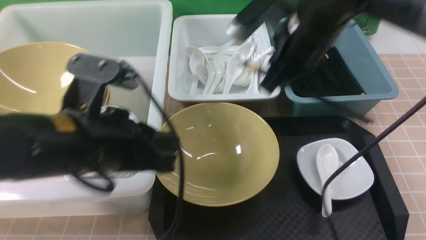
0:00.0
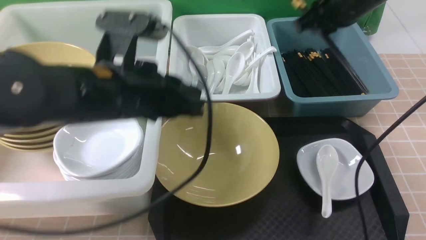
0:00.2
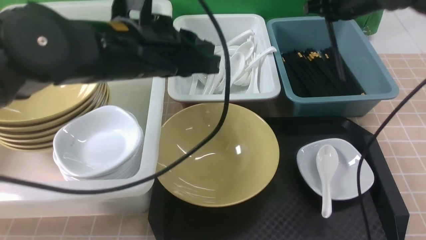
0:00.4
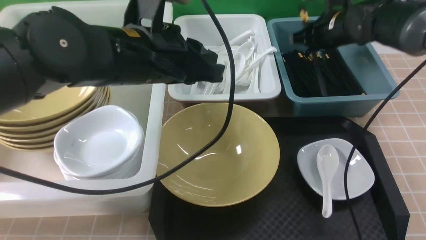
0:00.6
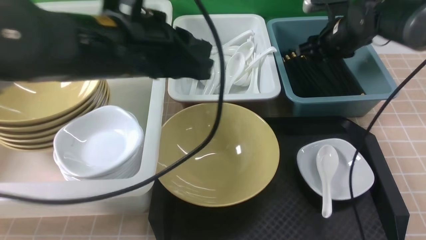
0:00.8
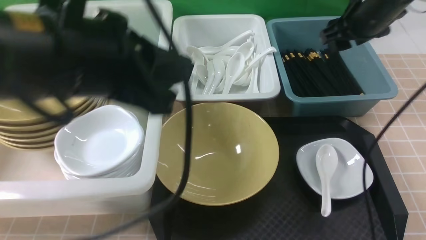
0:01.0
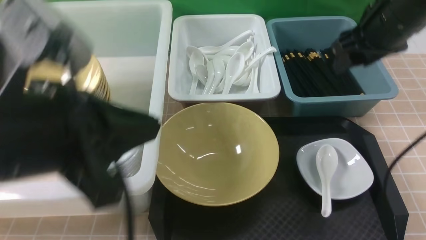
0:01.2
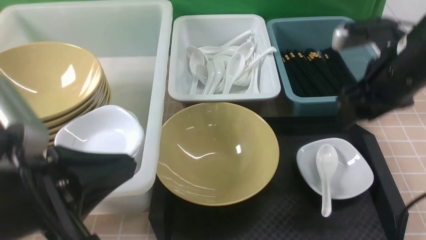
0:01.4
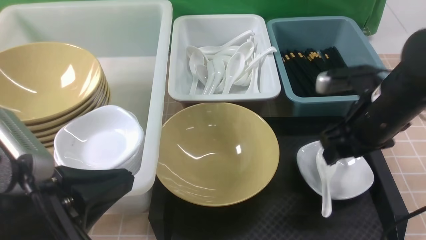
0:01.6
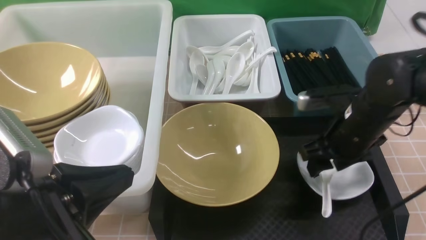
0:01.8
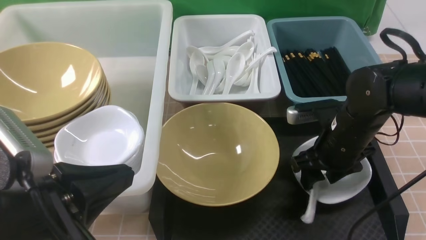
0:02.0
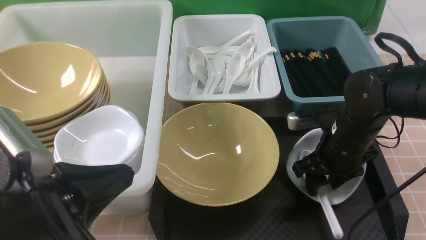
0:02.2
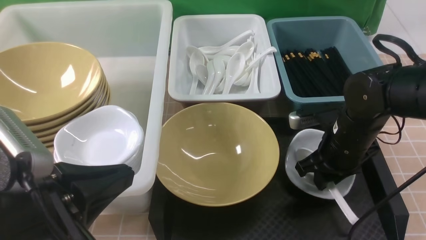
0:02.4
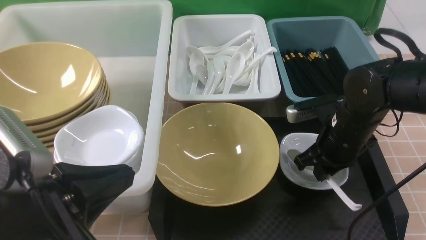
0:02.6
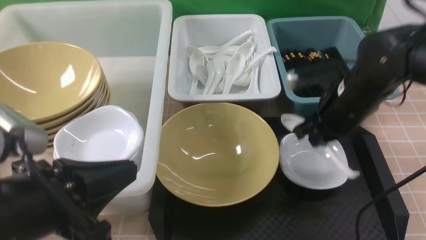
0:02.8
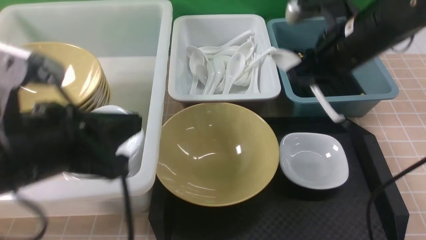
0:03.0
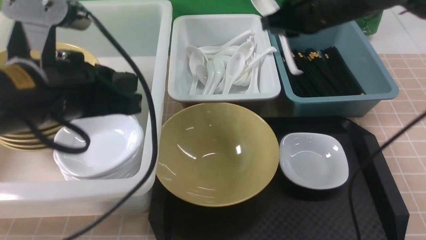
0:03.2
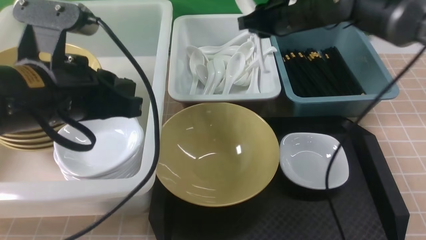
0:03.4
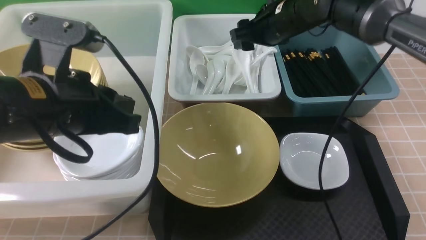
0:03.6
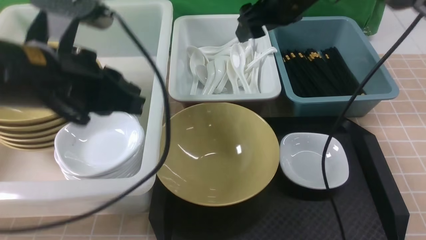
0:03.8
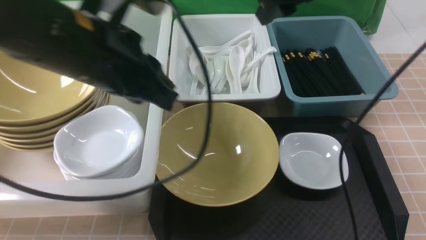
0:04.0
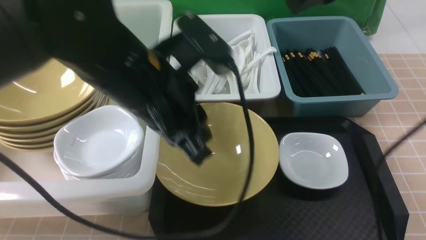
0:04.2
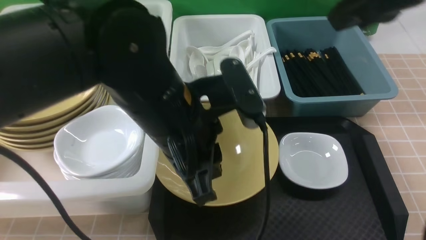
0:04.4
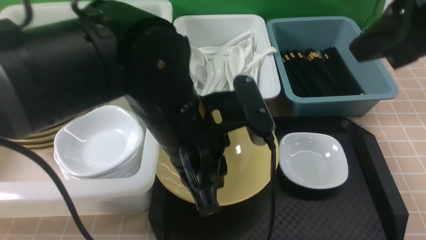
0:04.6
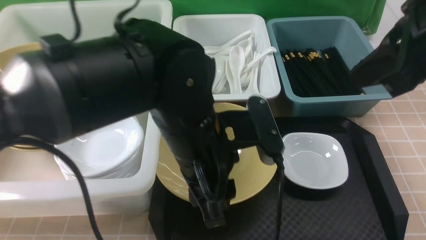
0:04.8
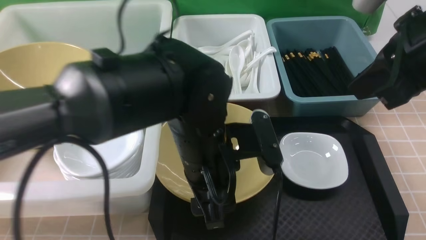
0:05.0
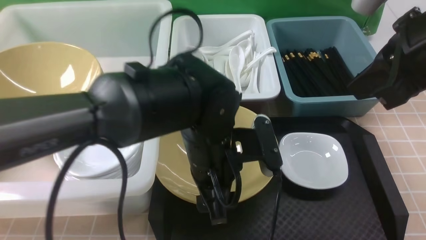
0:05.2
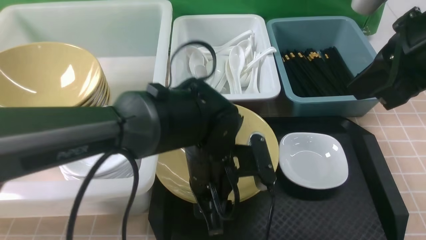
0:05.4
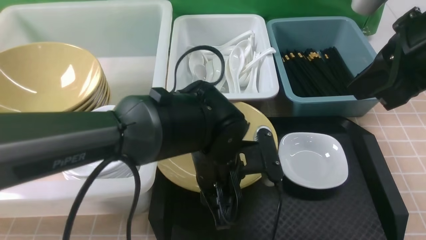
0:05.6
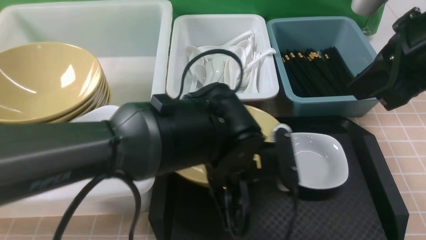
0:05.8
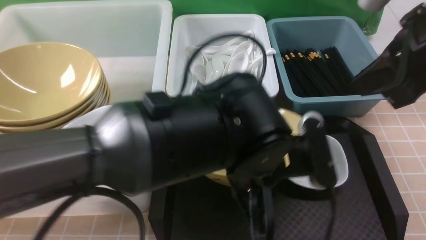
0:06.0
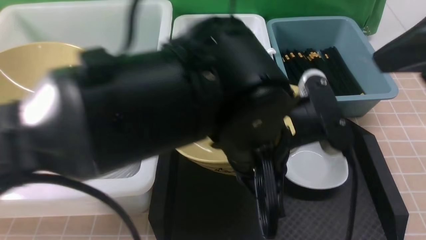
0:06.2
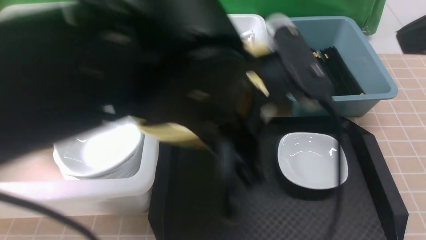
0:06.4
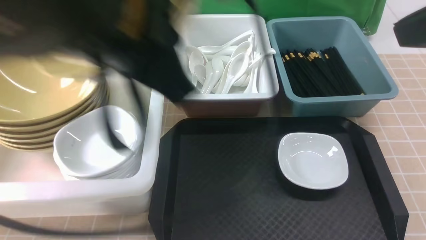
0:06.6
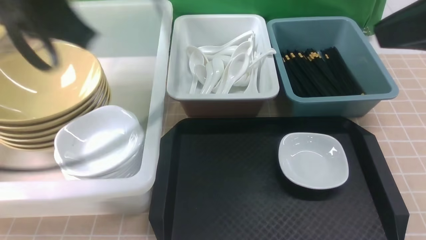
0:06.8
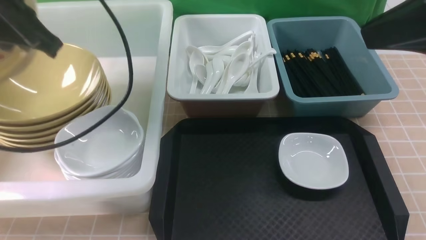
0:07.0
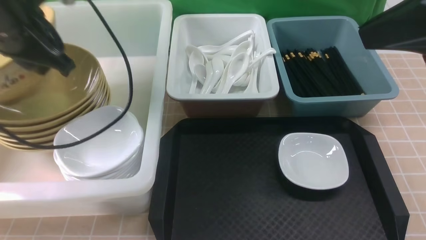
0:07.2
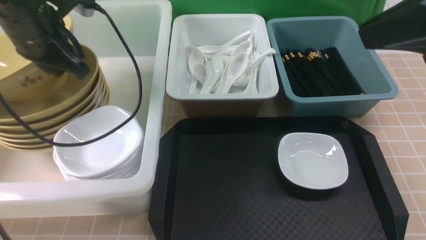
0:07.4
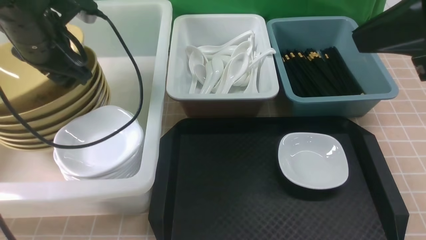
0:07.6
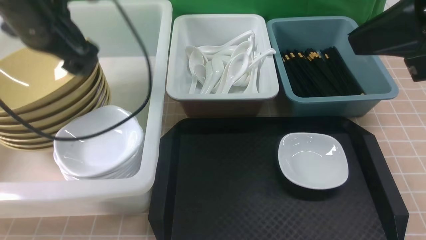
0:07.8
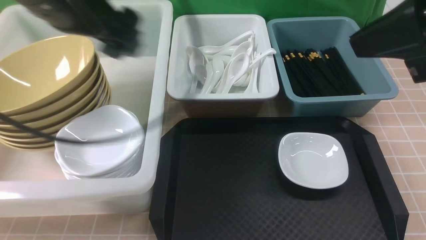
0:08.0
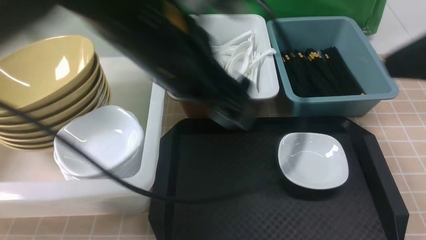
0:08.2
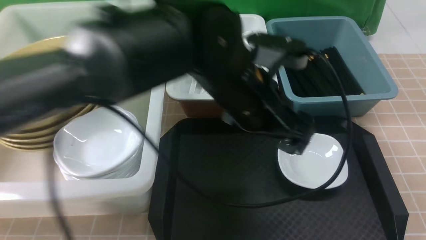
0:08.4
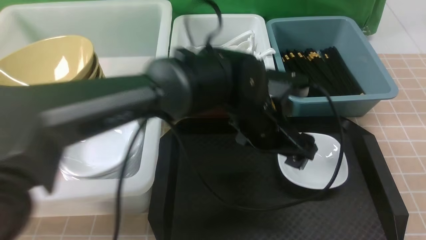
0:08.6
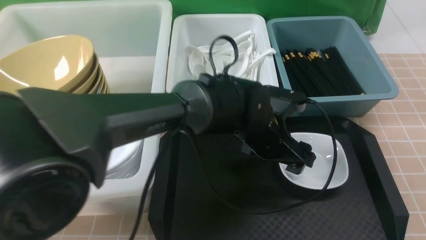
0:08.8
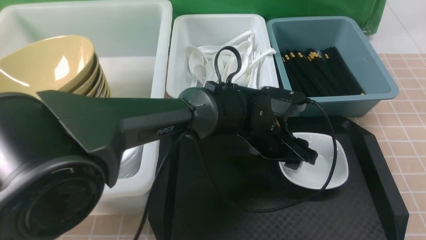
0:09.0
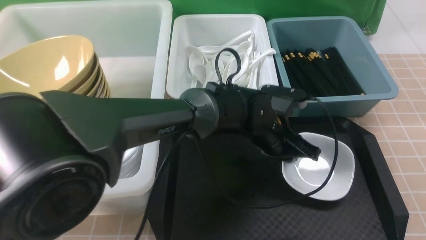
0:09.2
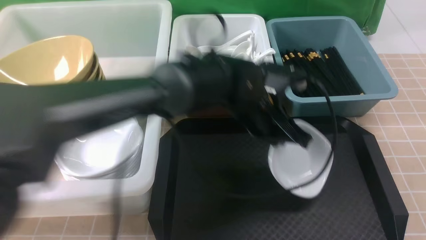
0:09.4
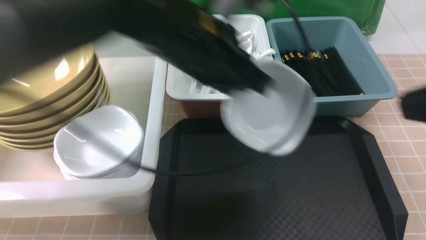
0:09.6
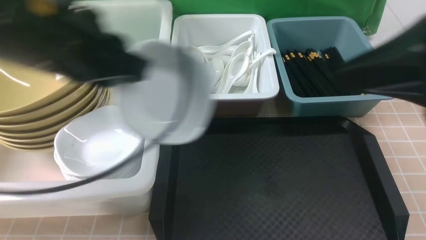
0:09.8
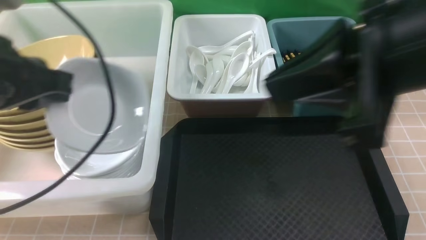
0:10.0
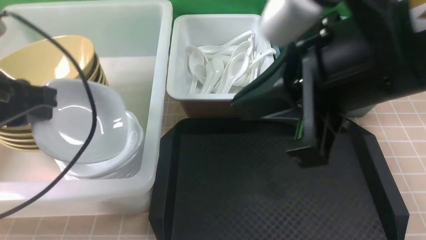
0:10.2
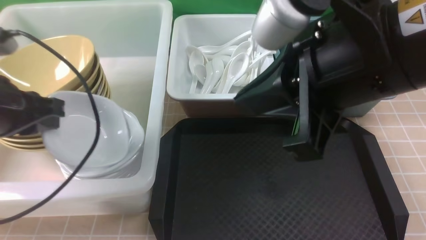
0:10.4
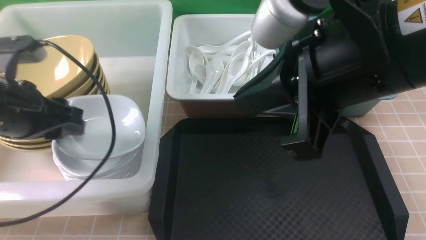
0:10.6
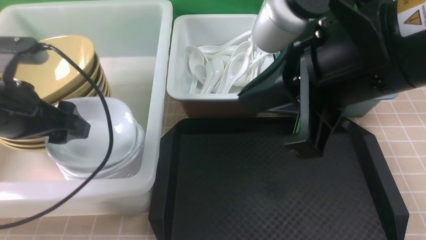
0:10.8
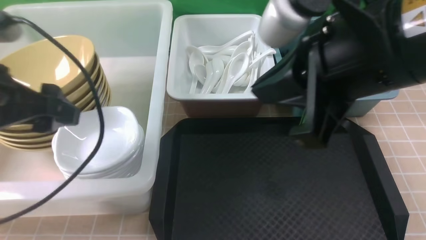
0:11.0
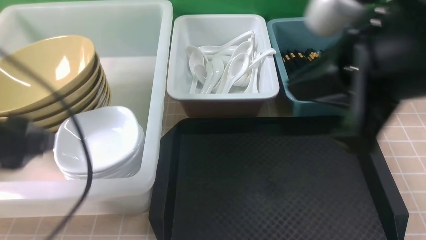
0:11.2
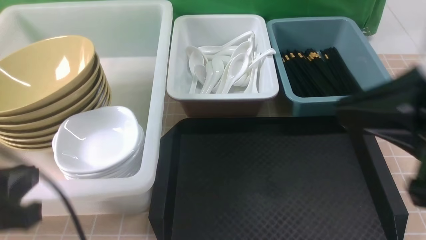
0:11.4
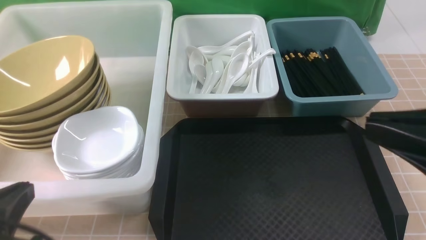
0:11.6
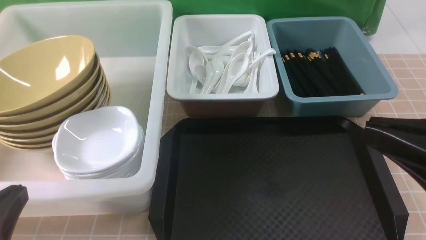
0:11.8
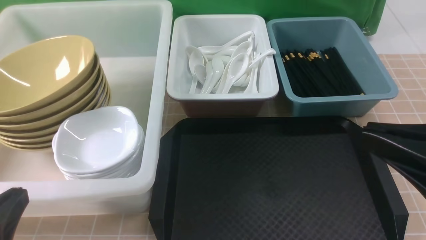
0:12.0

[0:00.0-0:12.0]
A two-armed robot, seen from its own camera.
Task of the whole recording: on brown table put chopsticks spoon bowls plates into blue grey white boxes.
Step, 0:00.0 to 0:01.0: use the right arm to put the chopsticks into the small storage box on the right.
Step, 0:01.2 to 0:02.6: use the right arm to grab the soup spoon in the middle.
Step, 0:03.0 to 0:04.0: use the right arm to put the soup spoon into the small storage box in the middle.
Step, 0:04.2 to 0:06.0: use the left arm to grab the yellow noodle bowl on the left.
Step, 0:06.2 to 0:08.0: use the left arm to put the noodle bowl into the large storage box on the left.
Step, 0:08.4 to 0:09.4: use the left arm to grab the plate.
Step, 0:09.6 to 0:11.2: use the left arm to put the plate into the large storage box on the left.
0:00.0 to 0:01.6: The left gripper moves backward and to the left, approximately 10 cm. The right gripper travels to the right, downward and backward by some 15 cm, and opens its fingers.
0:01.6 to 0:03.0: The right gripper travels upward and forward by about 10 cm, and closes; the left gripper heads forward, covering approximately 5 cm.
0:03.0 to 0:04.4: The right gripper heads upward and backward, covering some 15 cm, and opens, then closes again, while the left gripper travels to the right and forward by approximately 15 cm.
0:04.4 to 0:06.0: The left gripper is displaced to the right by about 10 cm, goes downward and returns, about 10 cm each way, and opens, then closes once more. The right gripper shifts some 5 cm backward.
0:06.0 to 0:07.6: The left gripper moves to the left and forward, approximately 30 cm, and opens up.
0:07.6 to 0:09.0: The left gripper heads to the right and downward, covering about 35 cm, and opens, then closes once more. The right gripper is displaced backward, to the right and downward by approximately 10 cm.
0:09.0 to 0:10.4: The left gripper is displaced to the left and upward by approximately 35 cm. The right gripper shifts some 20 cm to the left and forward.
0:10.4 to 0:12.0: The right gripper moves to the right, backward and downward, some 15 cm; the left gripper goes approximately 20 cm backward, and opens, then closes once more.

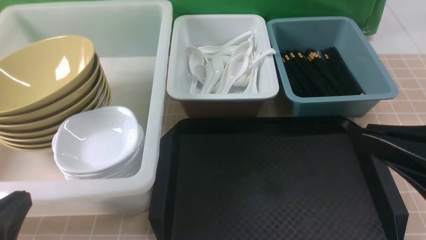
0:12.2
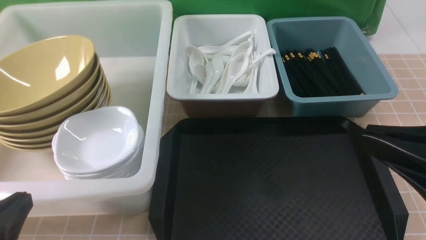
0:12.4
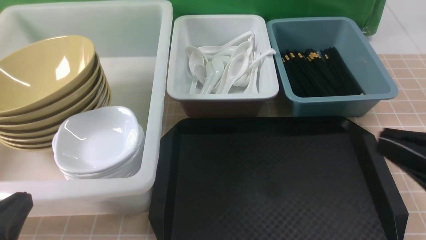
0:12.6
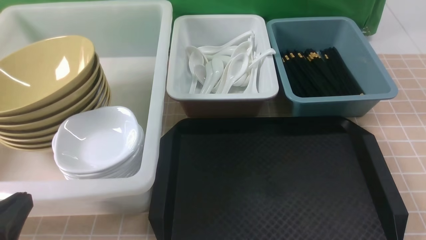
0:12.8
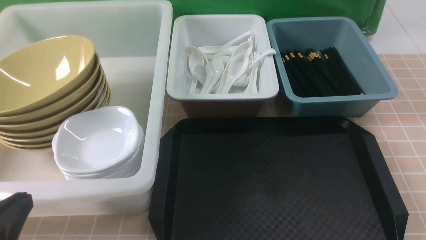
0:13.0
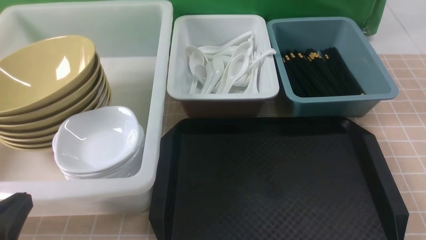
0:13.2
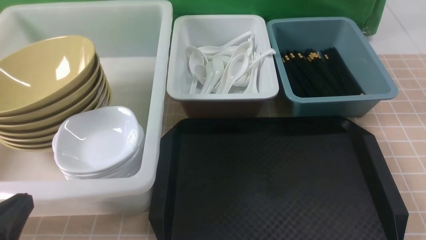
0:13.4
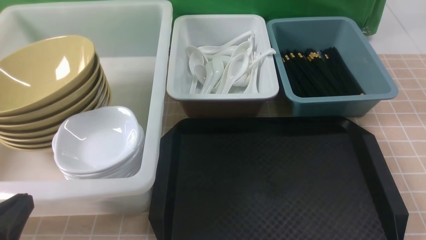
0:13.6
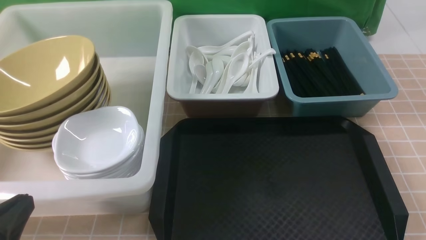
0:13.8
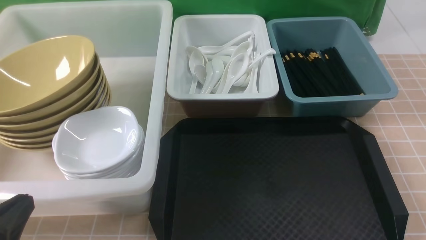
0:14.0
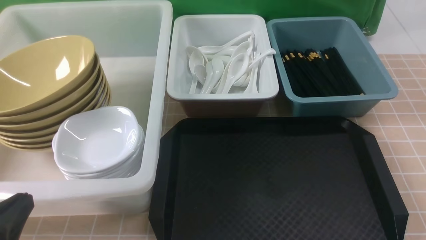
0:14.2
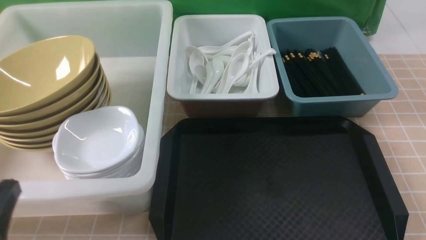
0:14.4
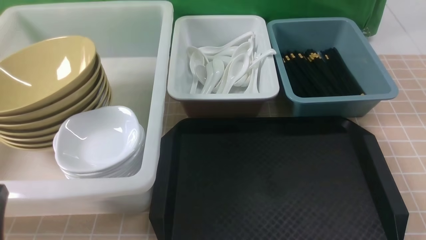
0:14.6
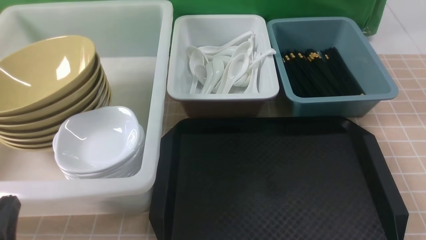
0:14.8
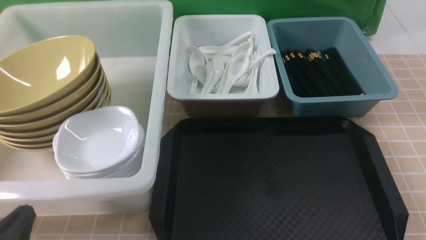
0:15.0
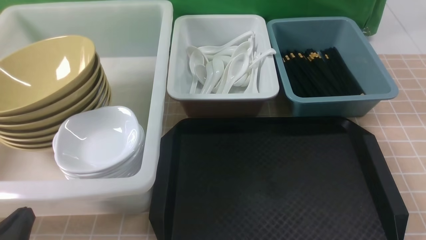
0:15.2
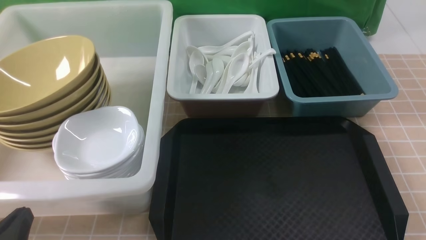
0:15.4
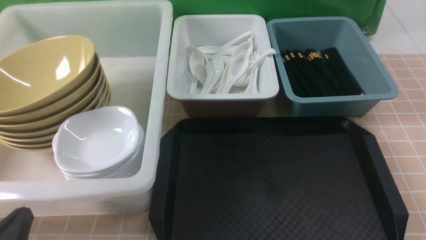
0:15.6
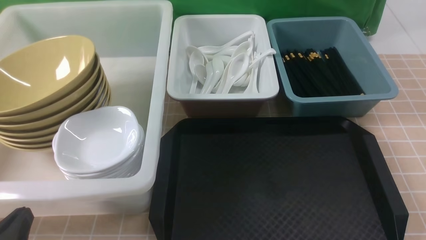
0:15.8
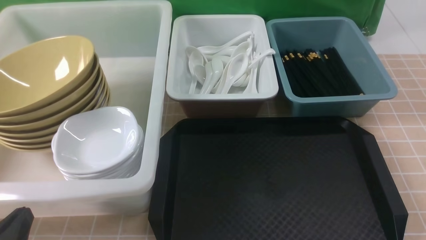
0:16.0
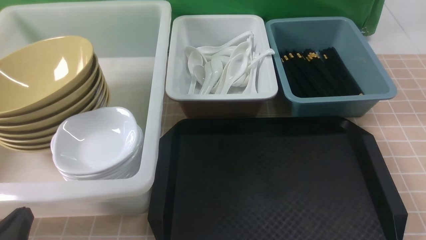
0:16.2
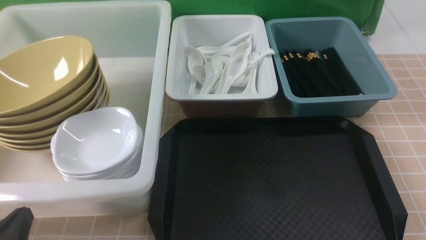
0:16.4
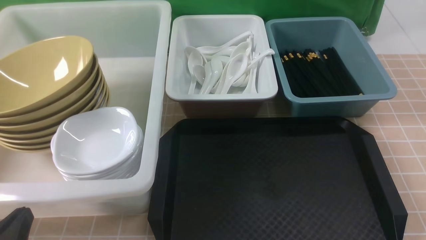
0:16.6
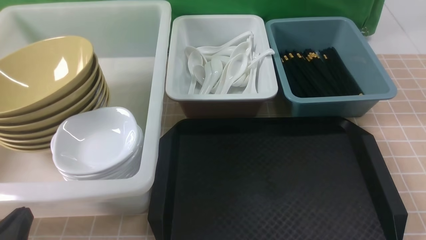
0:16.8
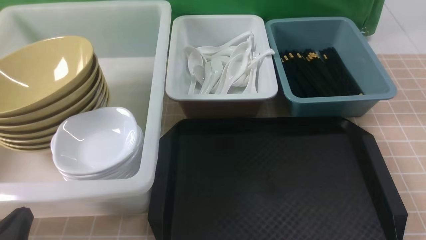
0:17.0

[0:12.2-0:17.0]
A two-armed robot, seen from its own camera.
Task of the whole recording: on brown table put chopsticks spoon bowls plates into blue grey white boxes.
0:12.2 to 0:13.8: The right gripper goes about 20 cm downward and to the right.
0:13.8 to 0:15.4: The left gripper shifts some 5 cm downward.
0:15.4 to 0:17.0: The two grippers keep their place.
